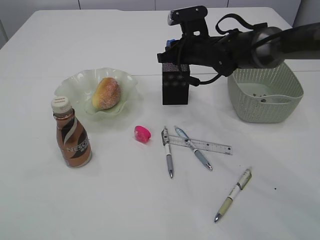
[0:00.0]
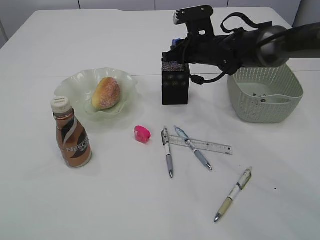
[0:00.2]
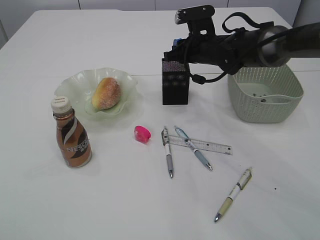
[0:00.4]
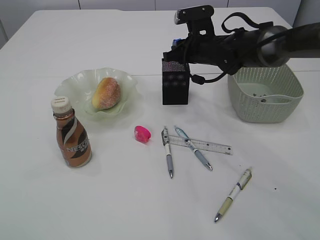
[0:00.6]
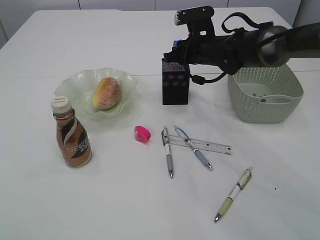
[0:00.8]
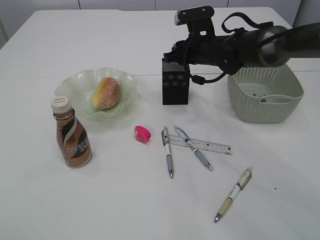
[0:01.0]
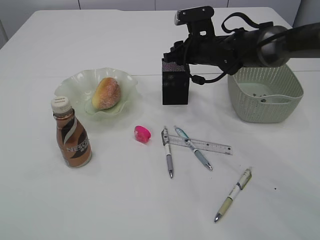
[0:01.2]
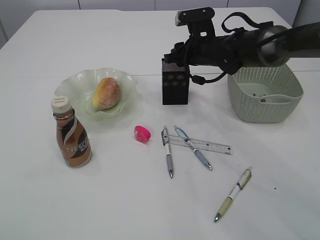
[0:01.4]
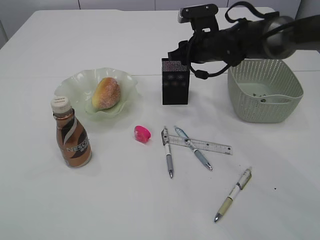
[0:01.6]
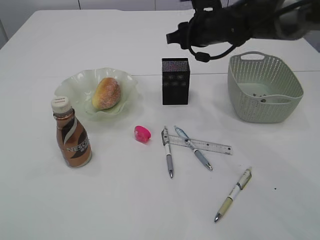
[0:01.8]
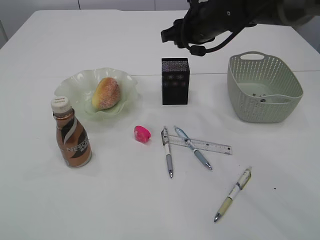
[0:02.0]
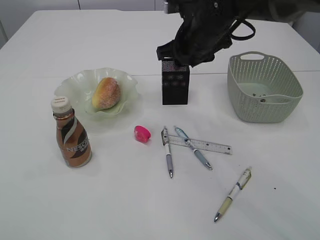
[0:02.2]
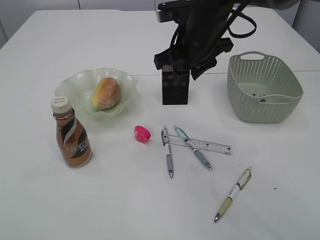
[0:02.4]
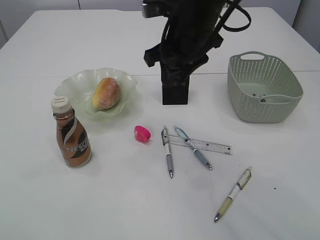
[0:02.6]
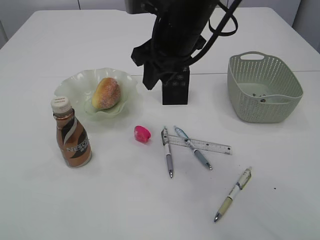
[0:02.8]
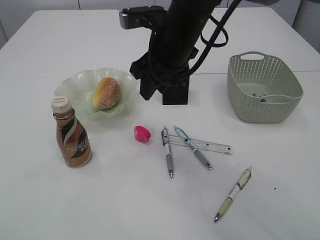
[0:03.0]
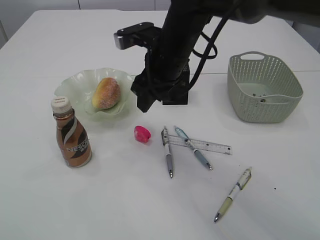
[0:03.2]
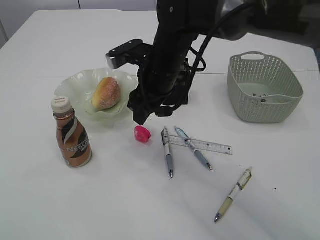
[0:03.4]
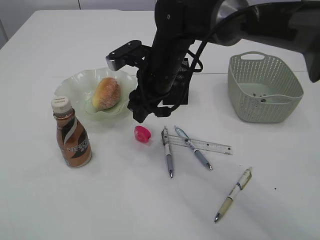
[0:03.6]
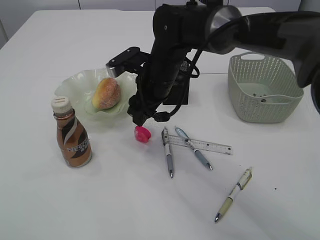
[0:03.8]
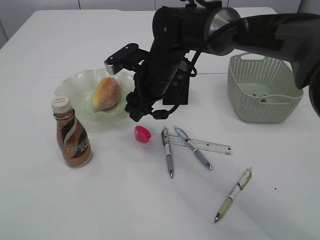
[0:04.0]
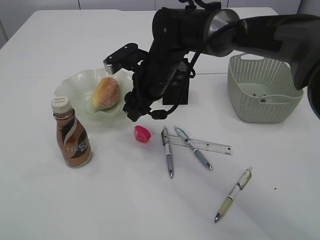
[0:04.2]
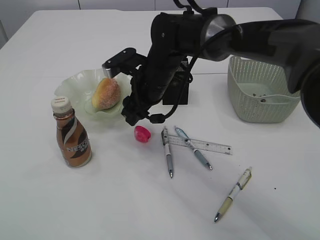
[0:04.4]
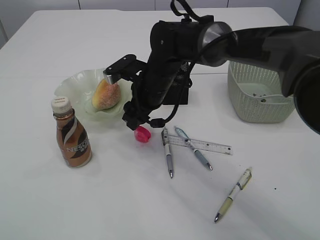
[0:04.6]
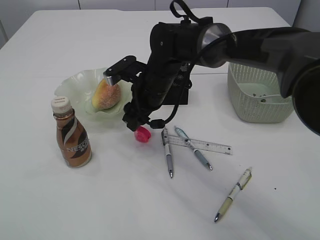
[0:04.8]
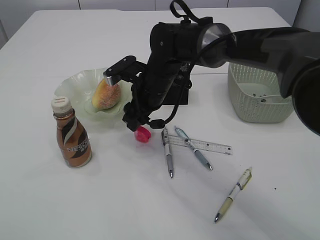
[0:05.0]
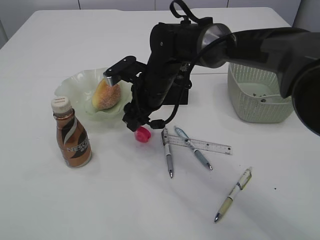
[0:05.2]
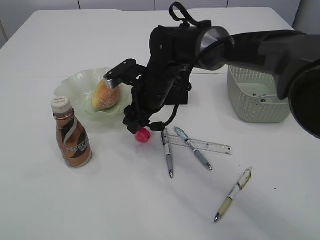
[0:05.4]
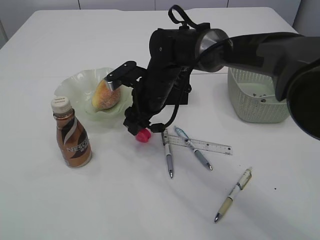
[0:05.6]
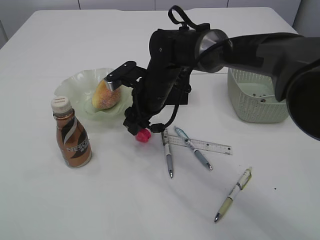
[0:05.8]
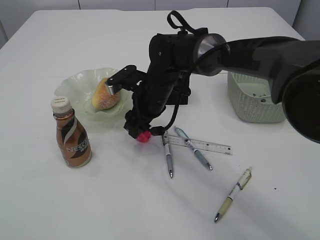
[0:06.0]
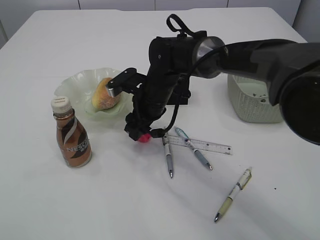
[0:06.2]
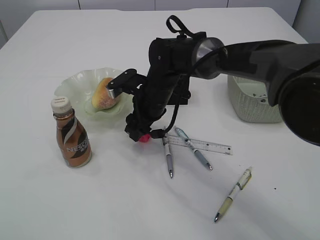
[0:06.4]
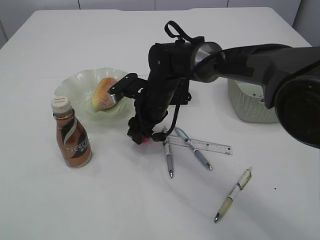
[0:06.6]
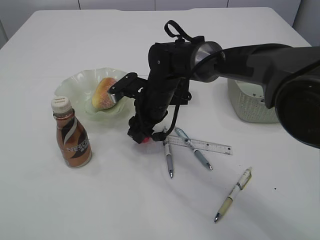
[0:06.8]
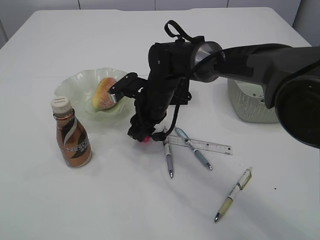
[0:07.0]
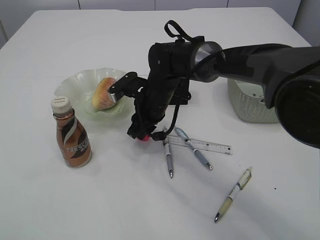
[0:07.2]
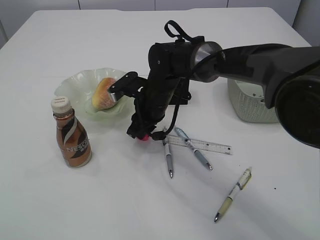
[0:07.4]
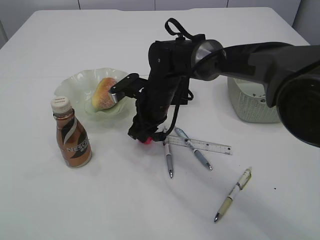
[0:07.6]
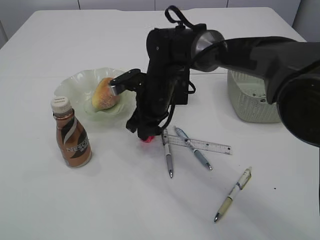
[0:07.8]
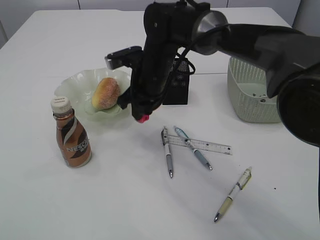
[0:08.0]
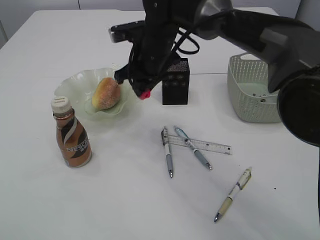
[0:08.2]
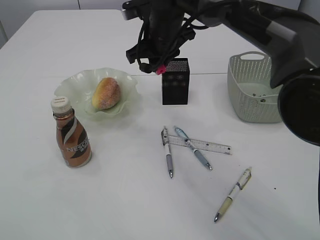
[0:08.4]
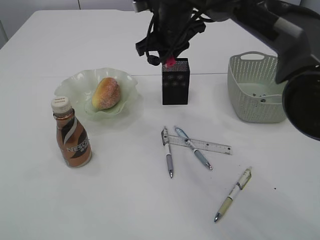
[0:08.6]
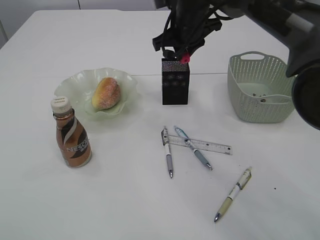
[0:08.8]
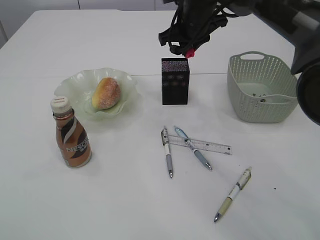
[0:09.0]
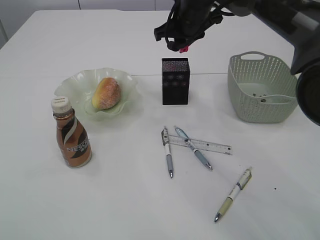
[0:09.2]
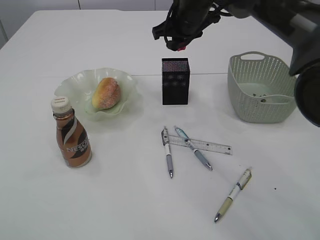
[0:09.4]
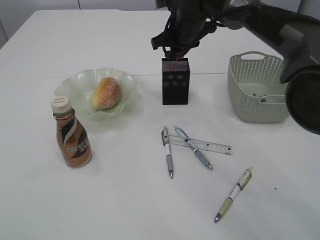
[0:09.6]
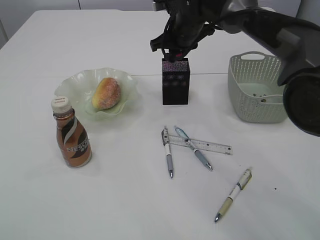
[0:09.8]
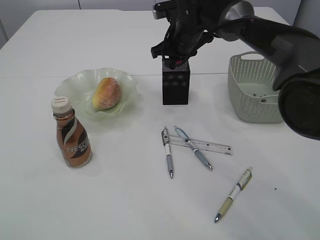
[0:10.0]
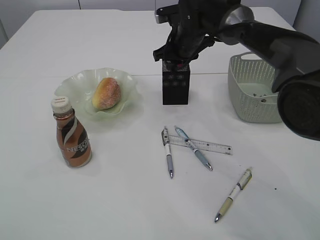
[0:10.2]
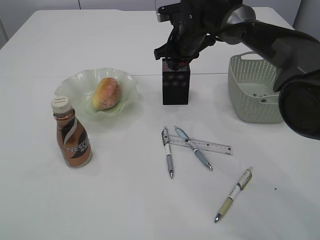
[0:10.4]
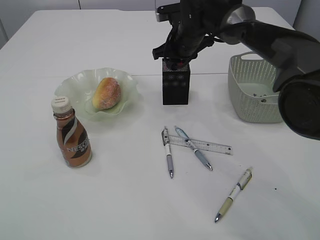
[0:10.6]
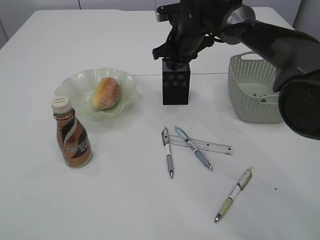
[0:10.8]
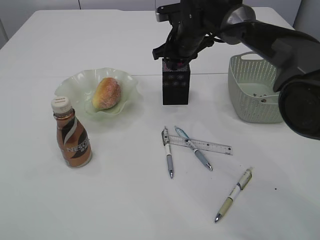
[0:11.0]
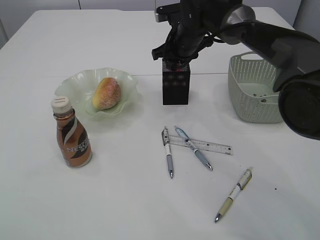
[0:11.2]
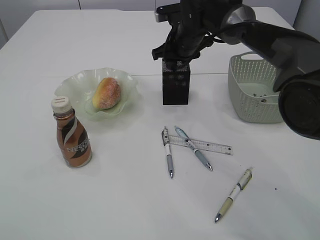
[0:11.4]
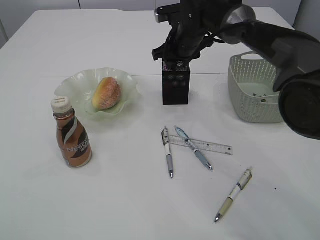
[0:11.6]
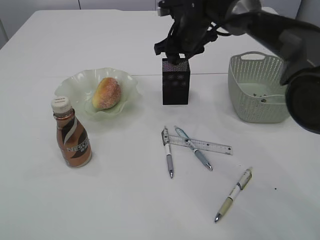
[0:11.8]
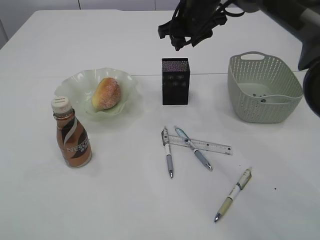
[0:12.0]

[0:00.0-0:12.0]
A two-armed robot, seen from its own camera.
Step, 0:02.0 to 0:08.0: Pick up the red pencil sharpener.
0:00.0 to 0:01.6: There are only small adjustments of the grippers.
0:01.6 to 0:03.0: The right gripper moves backward, to the left and upward, approximately 15 cm.
0:03.0 to 0:04.4: The right gripper travels downward by roughly 10 cm.
0:04.4 to 0:06.0: There are only small adjustments of the grippers.
0:06.0 to 0:07.6: The right gripper closes up.
0:07.6 to 0:09.0: The right gripper moves upward, to the right and forward, approximately 15 cm.
0:09.0 to 0:10.4: The right gripper goes approximately 5 cm downward.
0:10.4 to 0:12.0: The right gripper goes approximately 5 cm upward, and opens up.

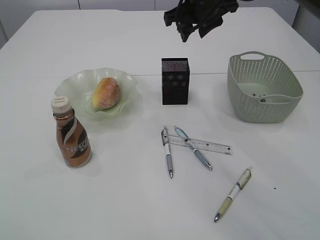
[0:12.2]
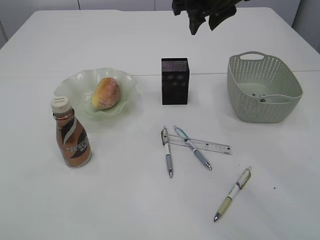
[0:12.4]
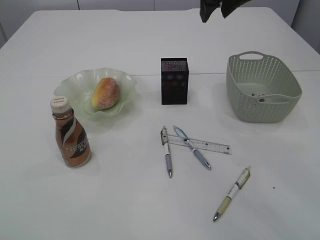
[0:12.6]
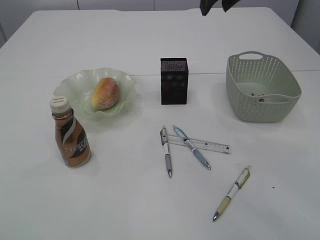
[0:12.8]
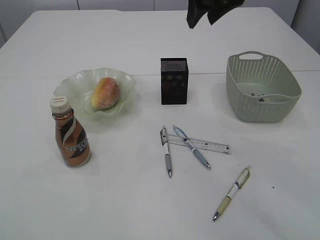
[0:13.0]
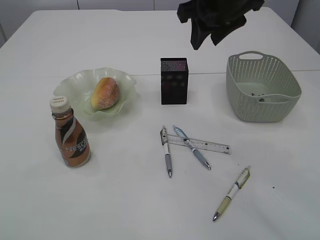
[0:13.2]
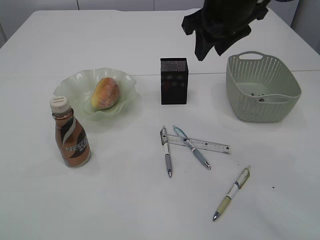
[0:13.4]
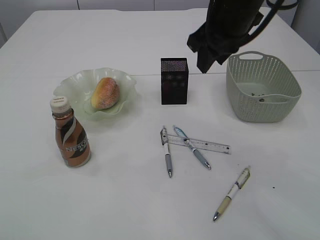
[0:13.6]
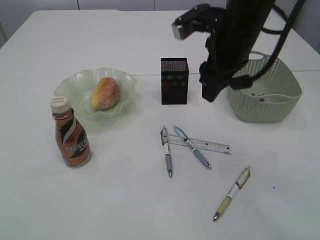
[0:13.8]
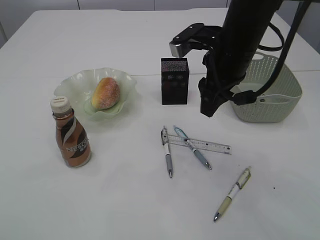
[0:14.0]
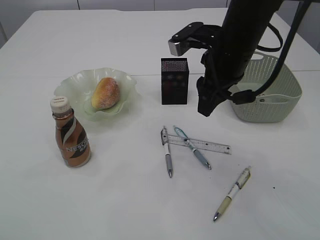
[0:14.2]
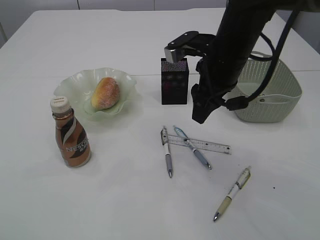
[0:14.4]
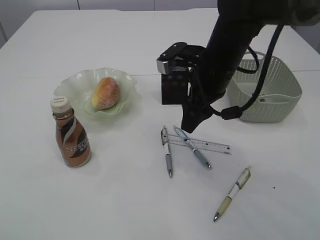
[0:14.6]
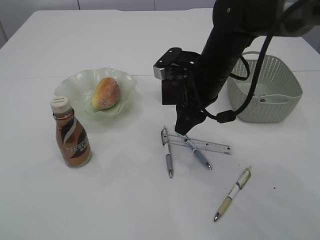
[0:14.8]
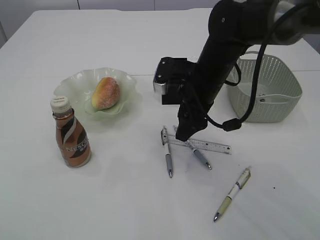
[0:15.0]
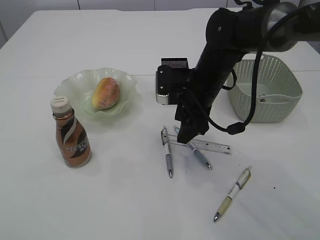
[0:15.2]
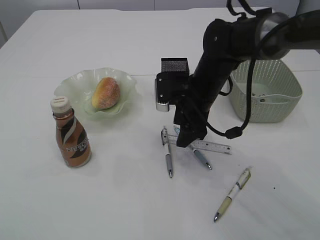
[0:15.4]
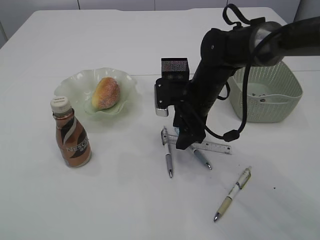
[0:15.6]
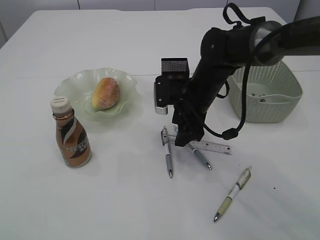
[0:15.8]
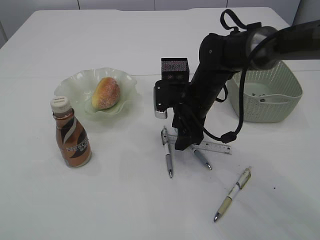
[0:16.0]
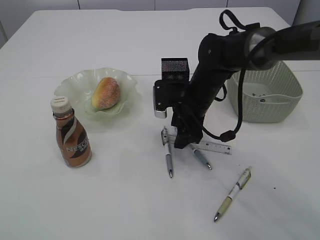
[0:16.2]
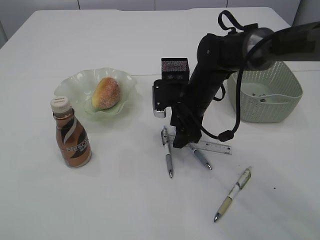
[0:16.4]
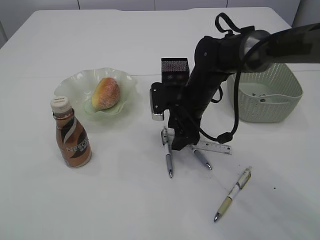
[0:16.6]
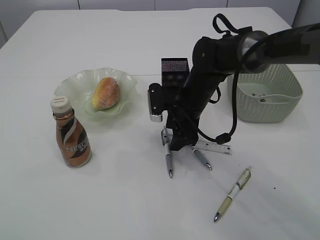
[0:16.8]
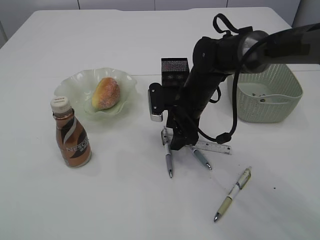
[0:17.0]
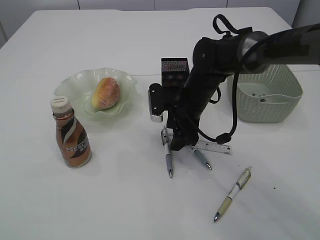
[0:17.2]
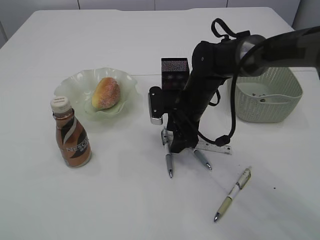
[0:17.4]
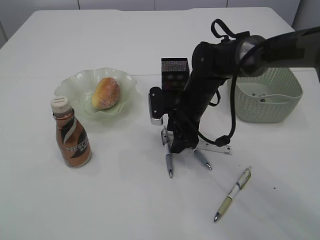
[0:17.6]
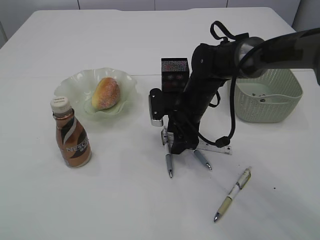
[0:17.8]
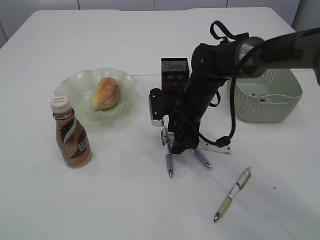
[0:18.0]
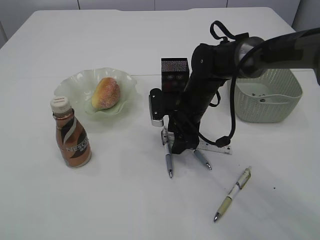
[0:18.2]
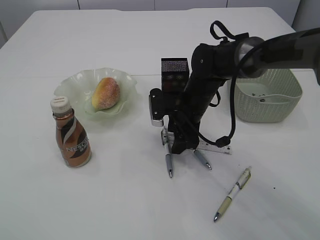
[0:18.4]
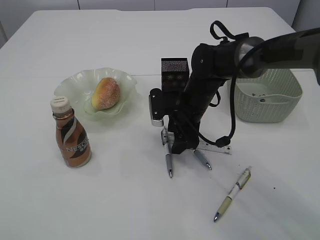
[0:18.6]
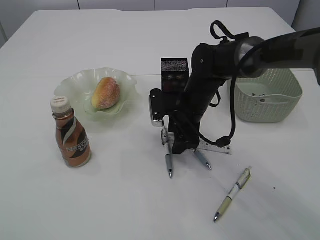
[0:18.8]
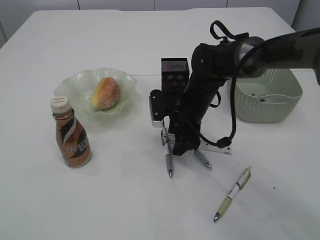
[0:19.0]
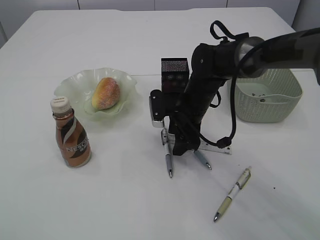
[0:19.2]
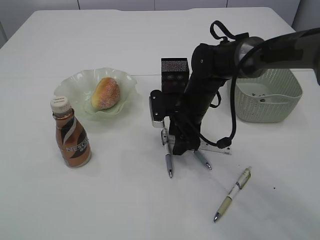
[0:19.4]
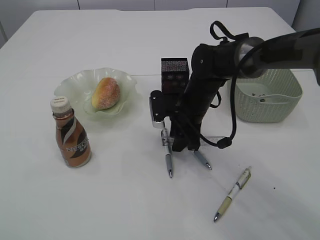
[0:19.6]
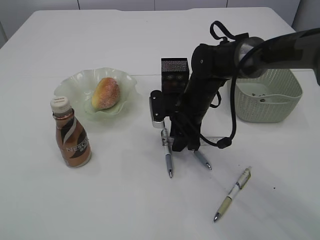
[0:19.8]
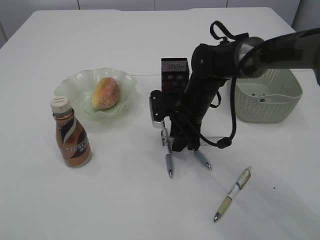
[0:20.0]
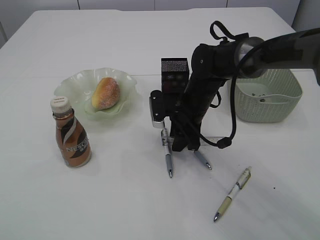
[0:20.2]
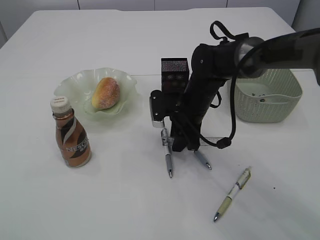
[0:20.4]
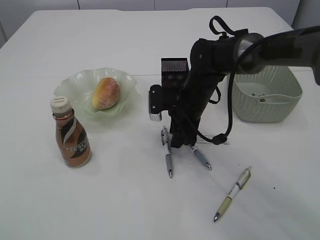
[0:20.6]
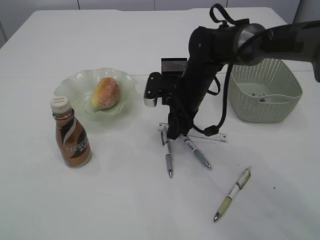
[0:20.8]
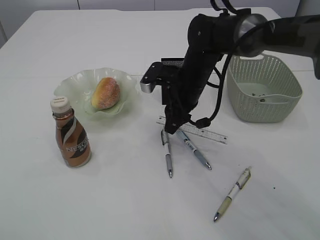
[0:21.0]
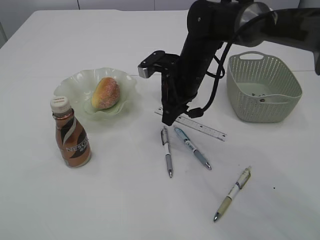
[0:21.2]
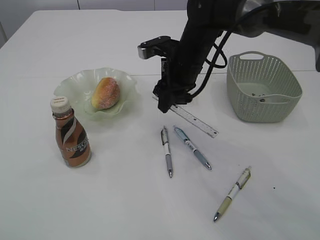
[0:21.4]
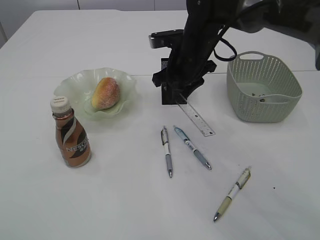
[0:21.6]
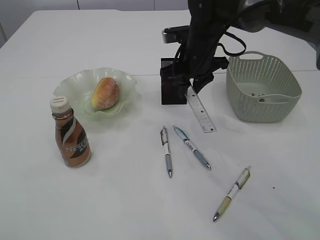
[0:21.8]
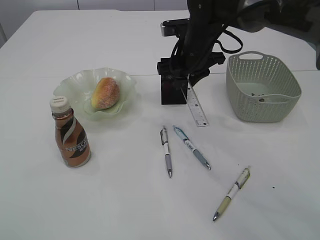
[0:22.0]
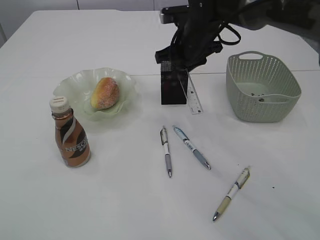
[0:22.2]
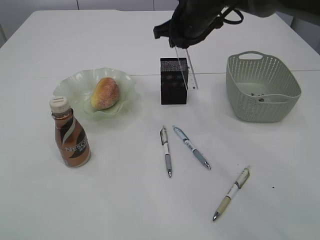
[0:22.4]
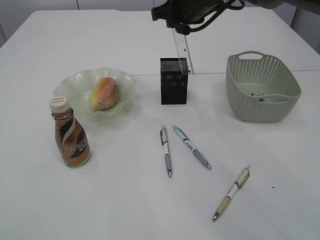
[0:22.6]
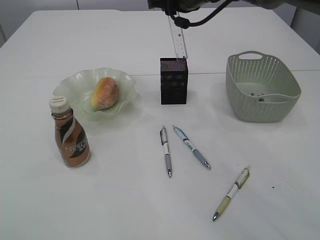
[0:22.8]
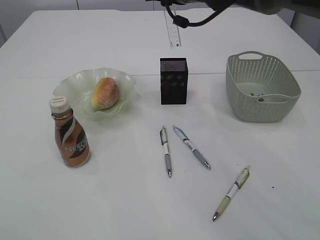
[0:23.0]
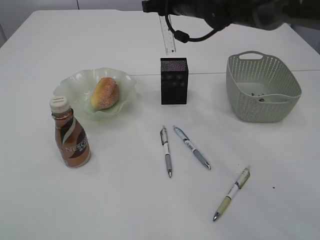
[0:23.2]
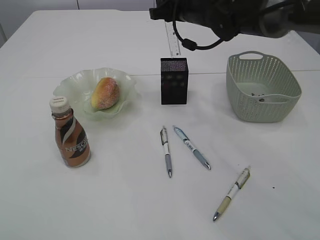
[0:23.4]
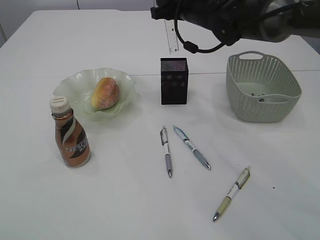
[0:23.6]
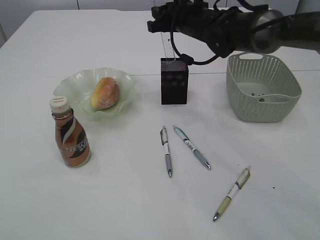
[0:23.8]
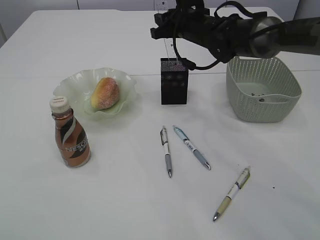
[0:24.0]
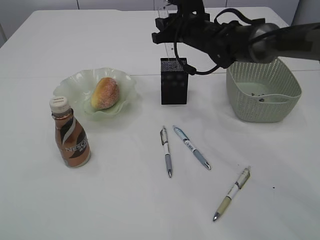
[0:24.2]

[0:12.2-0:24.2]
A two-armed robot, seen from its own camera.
Step, 0:12.2 to 0:21.6: pick up the ruler.
0:12.2 to 0:13.8: The right gripper heads backward, covering some 10 cm.
0:13.8 to 0:15.2: The right gripper is displaced downward by approximately 10 cm.
0:15.2 to 0:16.6: The right gripper changes place by approximately 5 cm.
0:16.6 to 0:18.2: The two grippers keep their place.
0:18.2 to 0:19.8: The right gripper closes its fingers.
0:19.8 to 0:21.2: The right gripper heads upward, covering some 5 cm.
0:21.2 to 0:22.6: The right gripper goes some 10 cm upward and forward.
0:22.6 to 0:24.2: The right gripper is displaced downward by about 10 cm.
